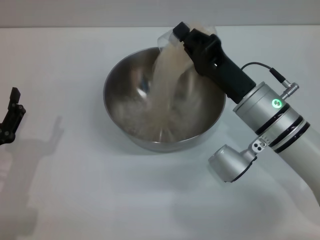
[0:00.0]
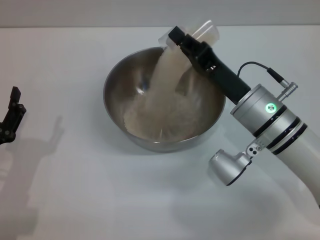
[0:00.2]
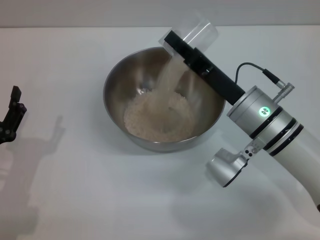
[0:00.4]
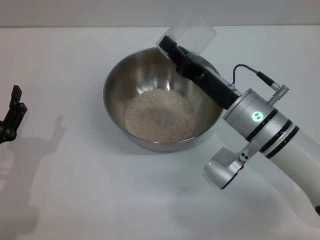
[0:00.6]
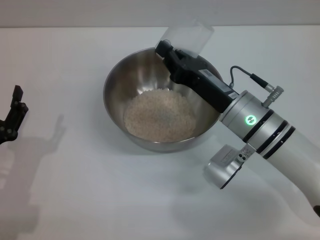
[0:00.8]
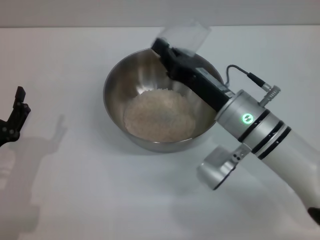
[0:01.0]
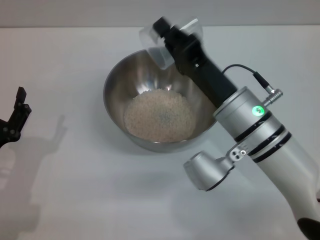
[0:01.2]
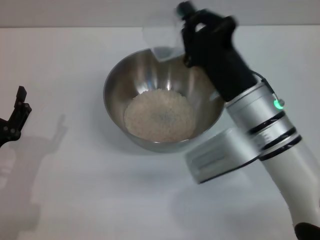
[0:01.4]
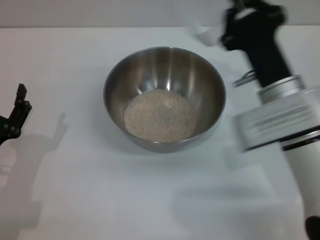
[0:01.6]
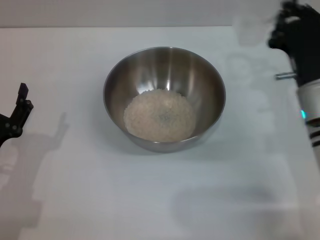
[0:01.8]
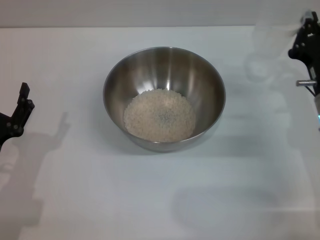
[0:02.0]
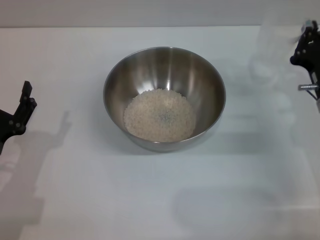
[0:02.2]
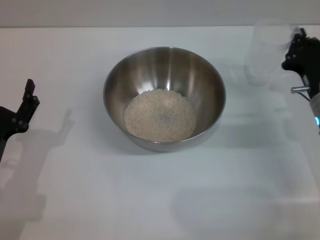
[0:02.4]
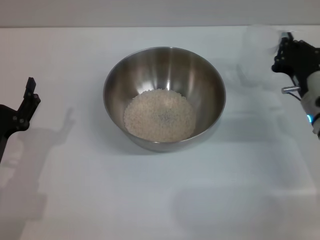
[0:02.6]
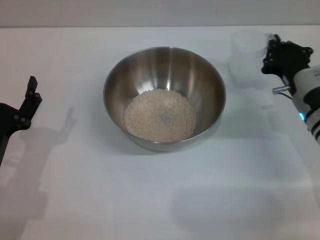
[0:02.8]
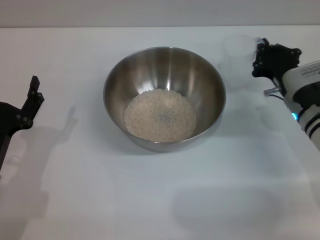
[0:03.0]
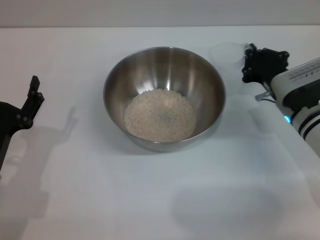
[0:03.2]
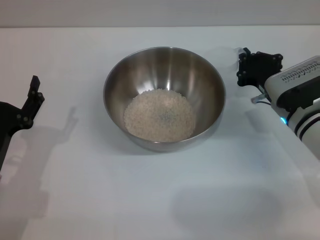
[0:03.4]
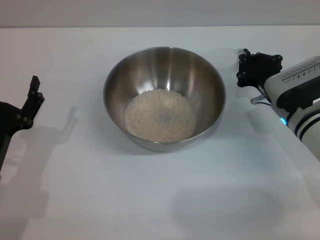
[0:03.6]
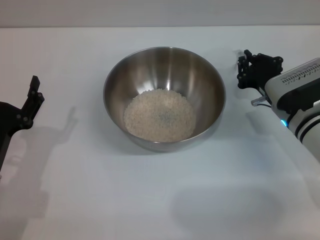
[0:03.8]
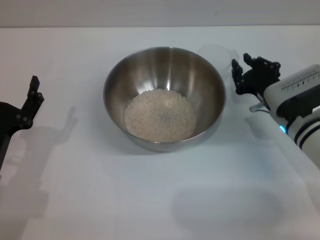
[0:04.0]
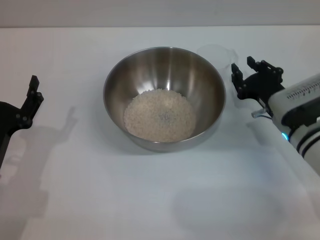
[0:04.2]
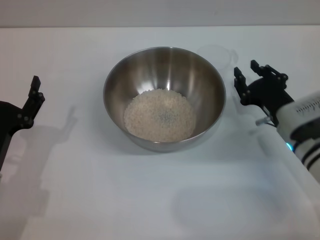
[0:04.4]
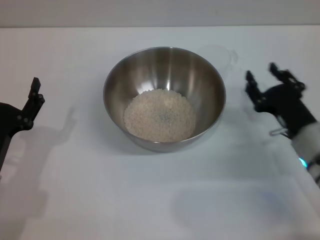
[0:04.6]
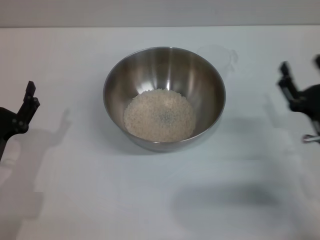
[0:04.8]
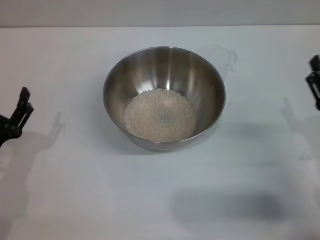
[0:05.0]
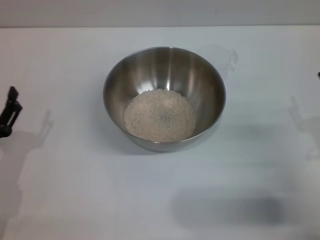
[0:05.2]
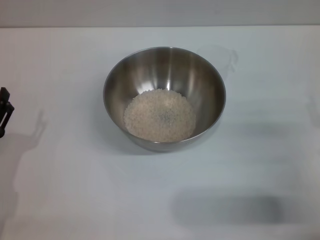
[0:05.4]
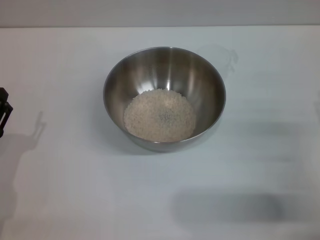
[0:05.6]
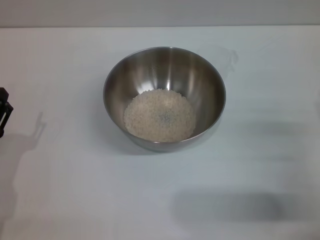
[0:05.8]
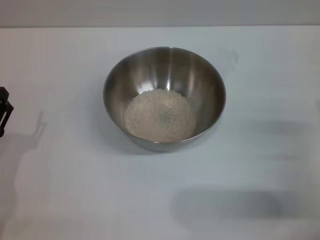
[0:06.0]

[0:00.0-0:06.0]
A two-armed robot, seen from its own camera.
Task of the whole recording: Place the bowl in the middle of the table with one hand and pour the rice from the grain cup into it with the other hand.
Step, 0:01.0 to 0:04.2: Place the cup on the table with the right gripper.
0:01.6 to 0:03.0: The right gripper shifts some 10 cm to the right, downward and forward.
0:03.0 to 0:04.4: The right gripper opens up.
0:04.4 to 0:06.0: The right gripper goes about 10 cm backward and to the right, and opens its fingers.

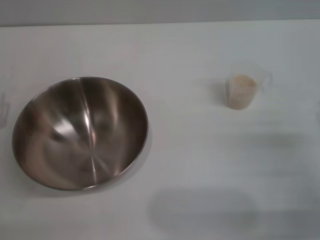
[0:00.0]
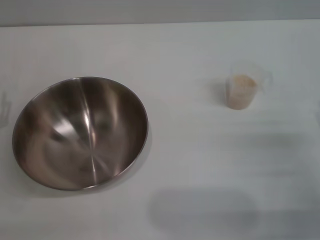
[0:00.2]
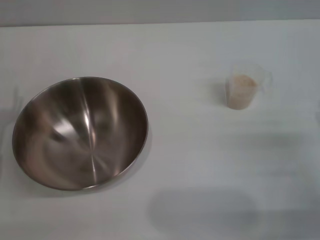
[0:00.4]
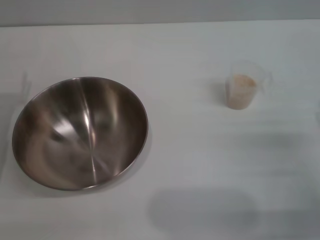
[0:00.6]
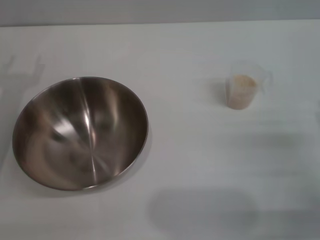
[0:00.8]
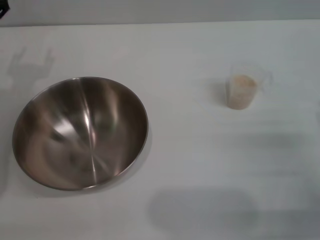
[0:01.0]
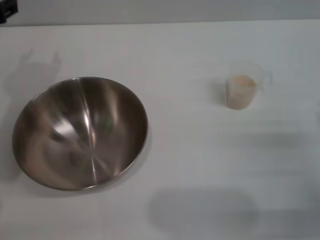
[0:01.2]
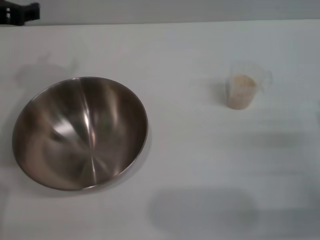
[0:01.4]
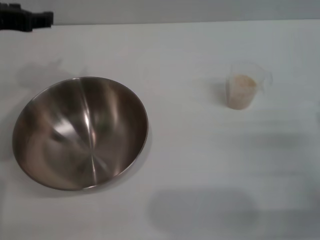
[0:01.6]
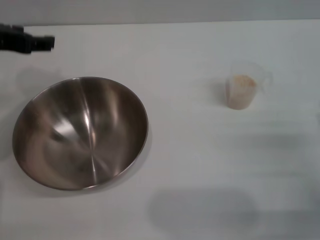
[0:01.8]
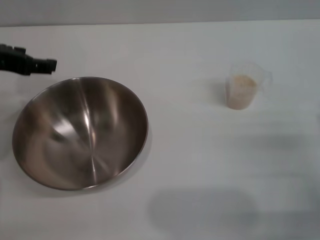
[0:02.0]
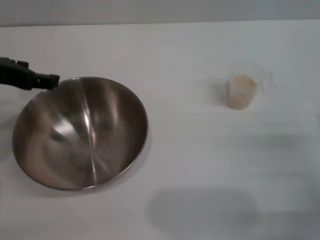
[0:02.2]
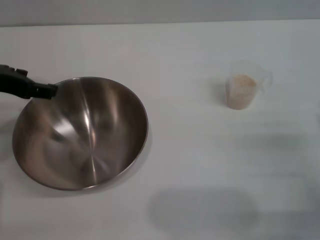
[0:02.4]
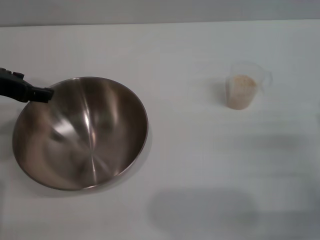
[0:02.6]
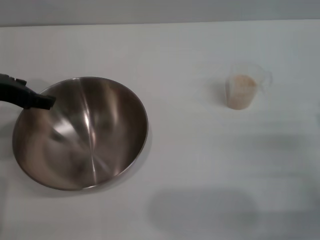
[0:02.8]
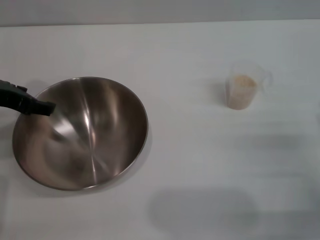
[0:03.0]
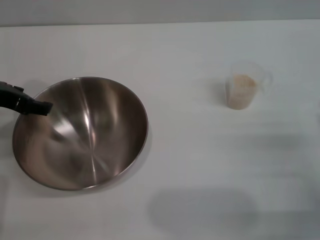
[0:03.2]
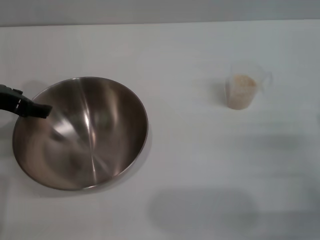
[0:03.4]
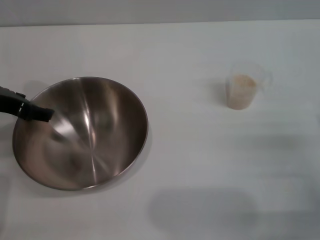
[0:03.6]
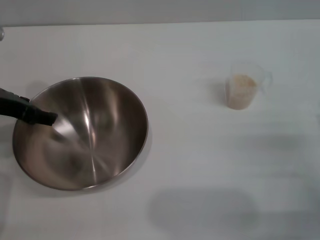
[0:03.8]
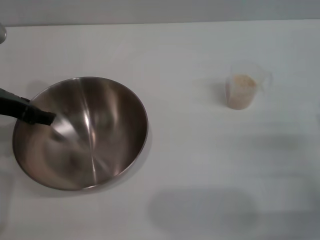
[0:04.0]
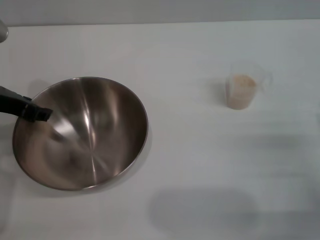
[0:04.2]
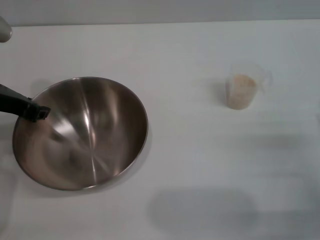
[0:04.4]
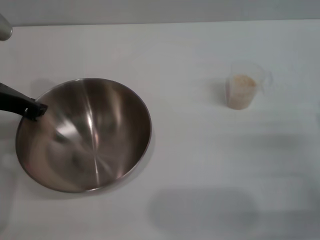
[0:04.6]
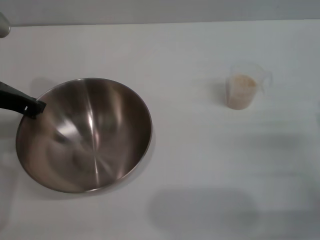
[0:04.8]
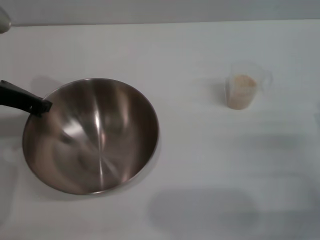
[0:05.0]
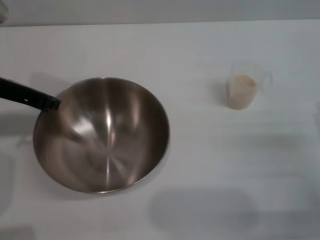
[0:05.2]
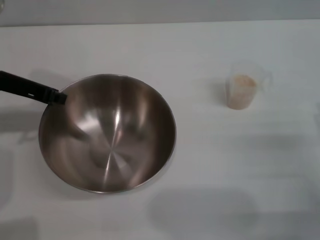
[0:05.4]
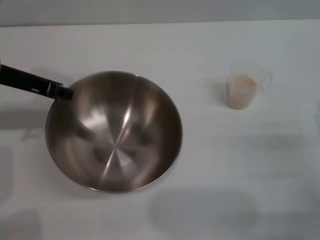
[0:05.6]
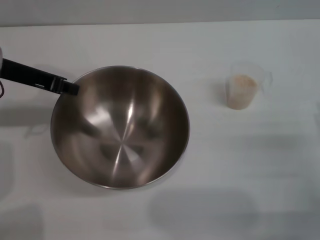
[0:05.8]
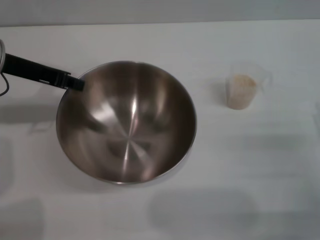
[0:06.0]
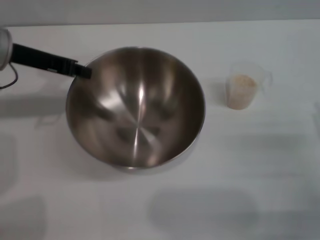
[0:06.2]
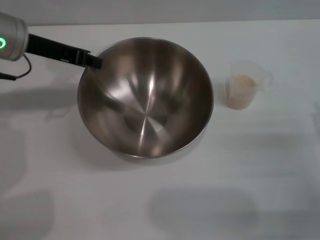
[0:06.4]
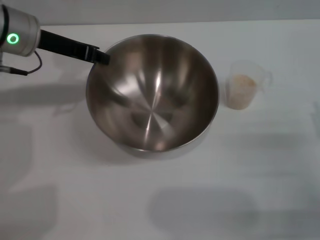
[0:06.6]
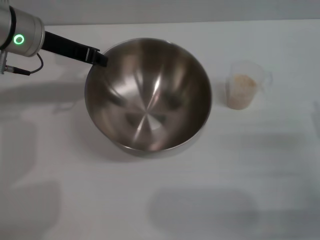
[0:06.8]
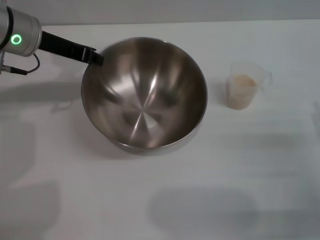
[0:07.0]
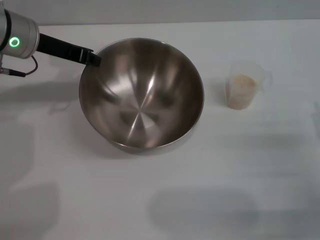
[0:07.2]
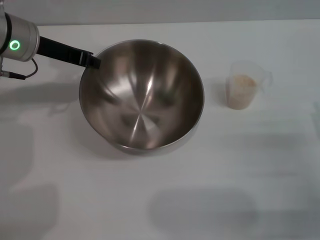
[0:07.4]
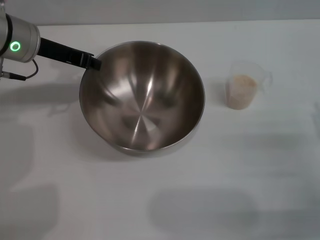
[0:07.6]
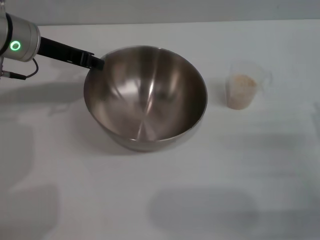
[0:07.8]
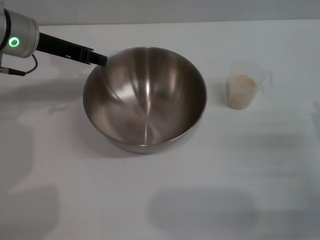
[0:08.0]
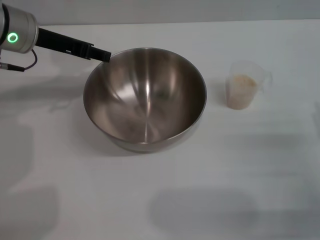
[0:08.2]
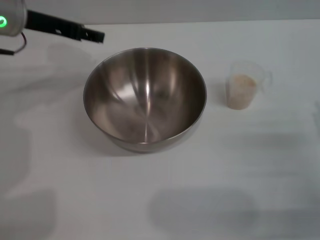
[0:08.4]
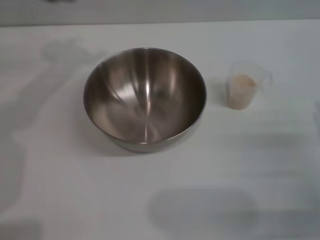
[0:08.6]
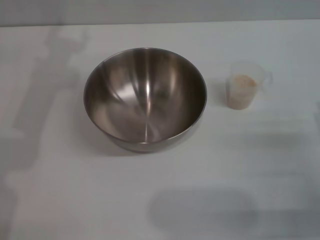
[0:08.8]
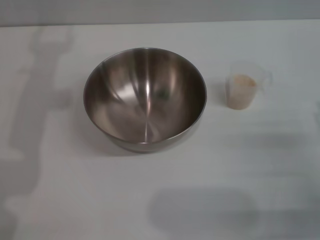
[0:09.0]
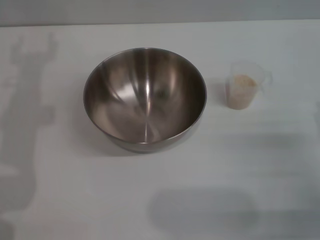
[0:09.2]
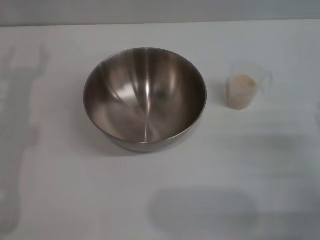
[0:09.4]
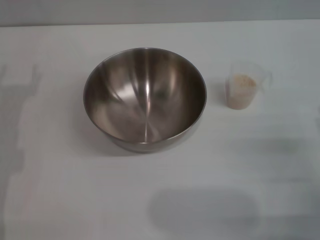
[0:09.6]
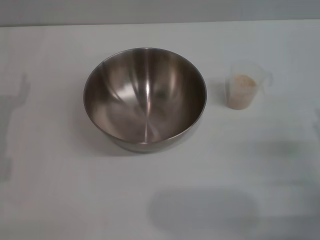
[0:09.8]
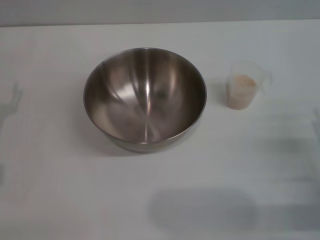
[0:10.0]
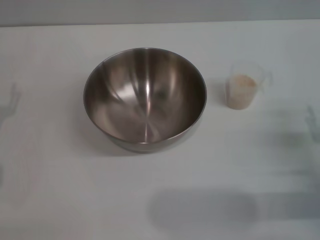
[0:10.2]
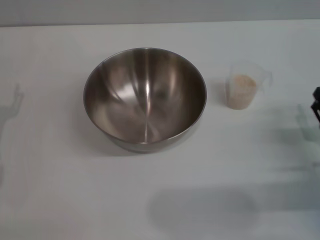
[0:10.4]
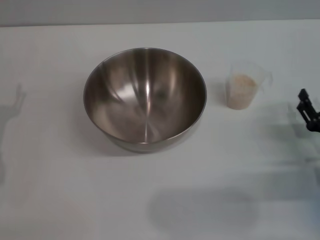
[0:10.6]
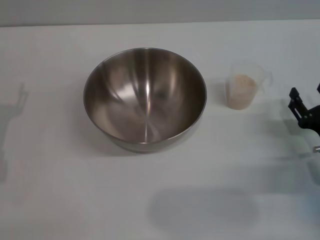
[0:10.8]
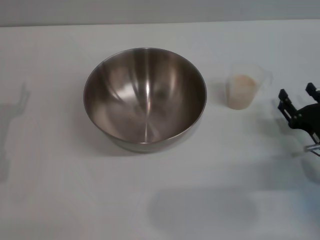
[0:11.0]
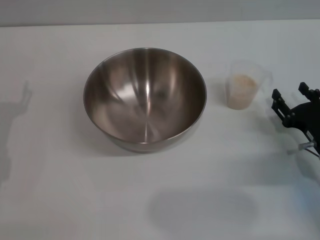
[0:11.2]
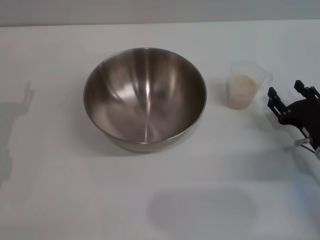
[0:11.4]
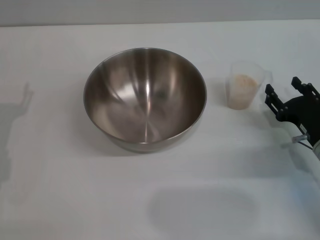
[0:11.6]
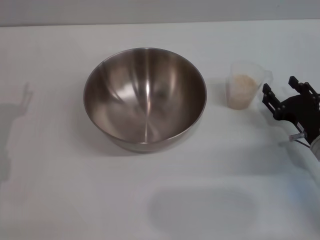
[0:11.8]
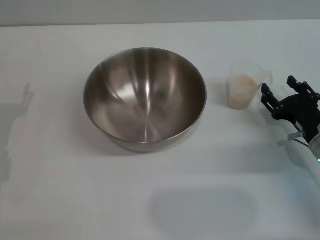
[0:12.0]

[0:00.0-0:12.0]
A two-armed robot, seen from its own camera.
Task of the whole recording: Place the bowl in the middle of the table with one hand and pour the rice from the grain cup into it with the other hand.
Step, 0:00.0 to 0:05.8: Pick up the bowl with the left gripper.
Step, 0:06.0 to 0:08.0: Place the bowl in the center of view with the left gripper.
0:00.0 to 0:01.6: The left gripper heads upward and forward, covering some 25 cm.
0:03.0 to 0:04.4: The grippers move only a little.
0:04.4 to 0:06.0: The left gripper closes its fingers.
0:06.0 to 0:07.6: The left gripper ends up some 5 cm from where it was.
0:07.6 to 0:09.0: The left gripper is displaced backward and upward by about 10 cm, and opens up.
0:10.4 to 0:12.0: The right gripper heads forward, covering some 5 cm.

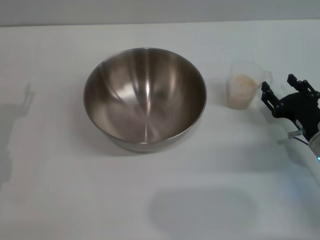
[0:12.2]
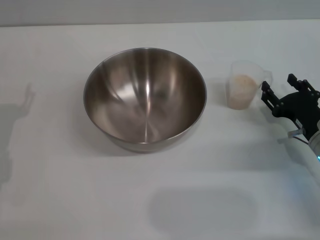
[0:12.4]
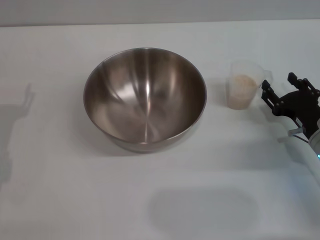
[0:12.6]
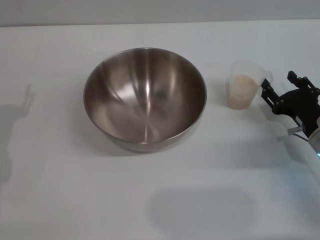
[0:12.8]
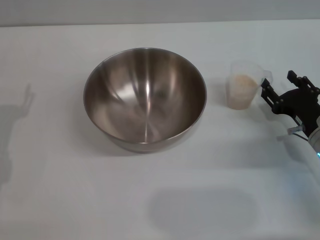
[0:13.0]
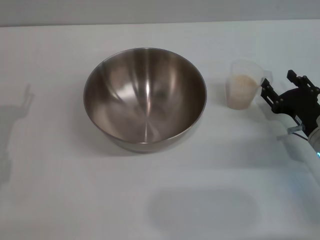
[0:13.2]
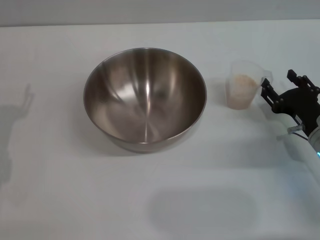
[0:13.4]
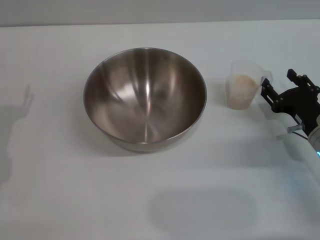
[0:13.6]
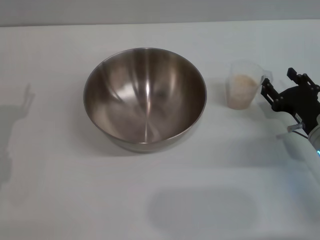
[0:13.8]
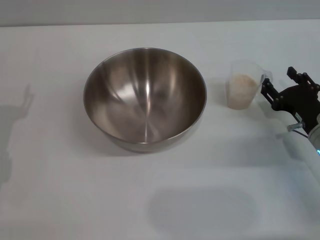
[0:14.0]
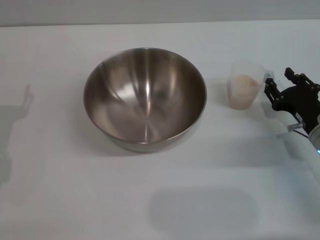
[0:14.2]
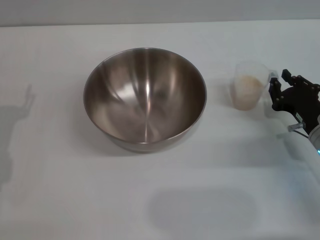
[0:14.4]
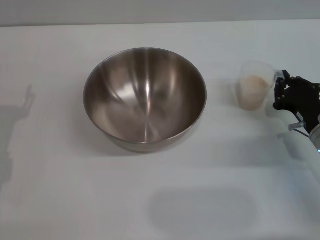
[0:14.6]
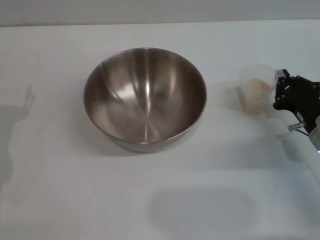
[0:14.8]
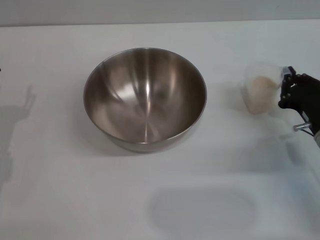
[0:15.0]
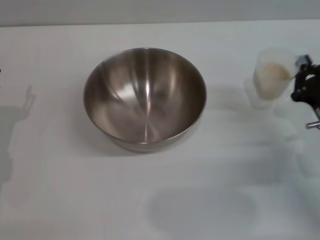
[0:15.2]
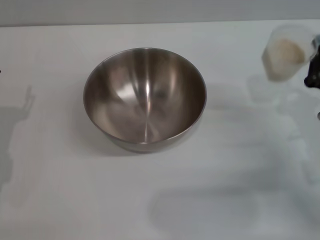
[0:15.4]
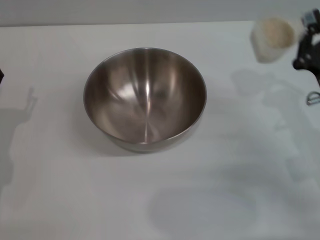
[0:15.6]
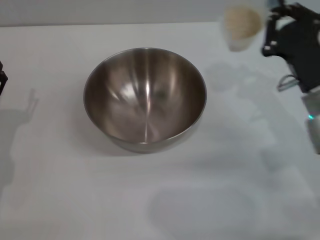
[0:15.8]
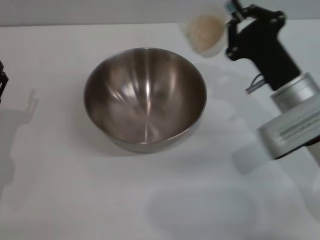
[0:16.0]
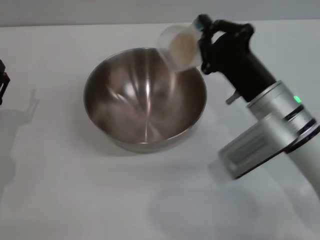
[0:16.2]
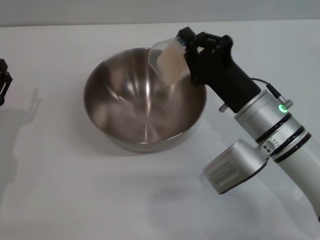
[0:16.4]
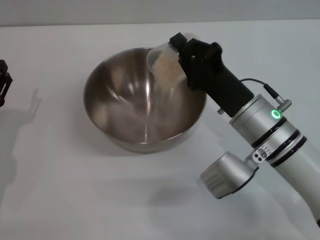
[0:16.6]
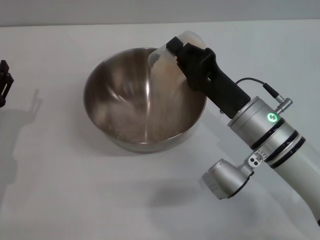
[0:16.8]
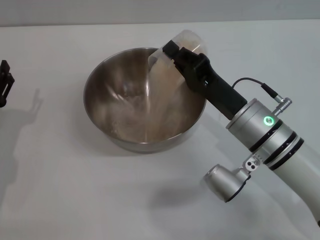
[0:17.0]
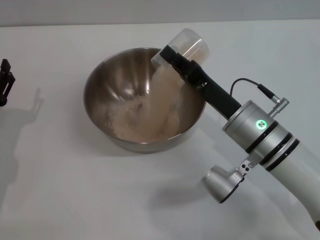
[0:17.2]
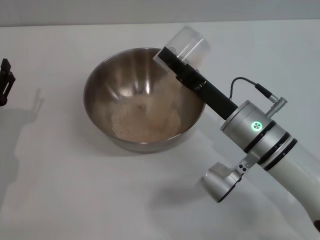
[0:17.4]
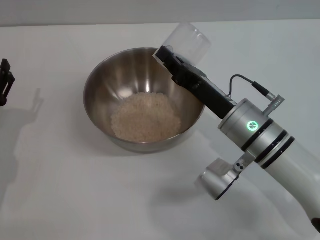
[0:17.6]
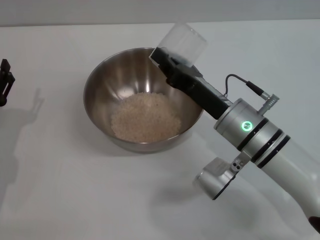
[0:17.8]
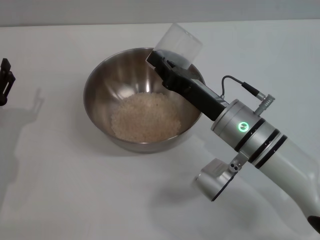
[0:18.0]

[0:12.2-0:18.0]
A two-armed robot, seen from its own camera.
Task of the whole recording: Place the bowl in the middle of the table with one hand and pour the rice from the grain cup into it with the other hand.
Step, 0:12.2 to 0:15.0: Pick up the cup with rice in it with the right gripper.
0:12.2 to 0:13.6: Both grippers stay about where they are.
0:13.6 to 0:15.0: The right gripper closes its fingers.
0:15.0 to 0:16.6: The right gripper travels to the left and upward by about 15 cm.
